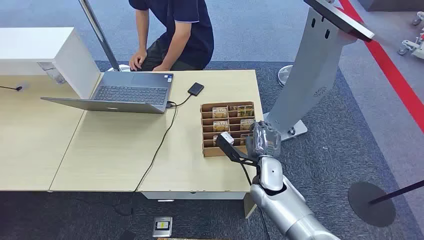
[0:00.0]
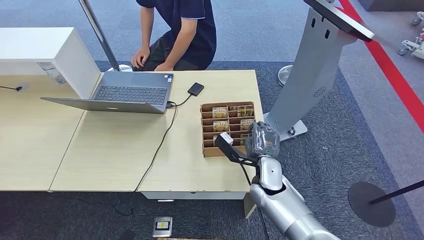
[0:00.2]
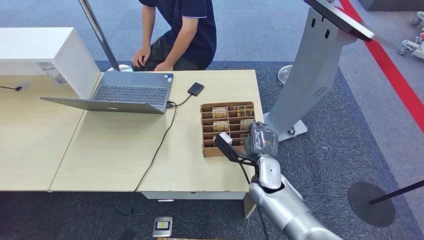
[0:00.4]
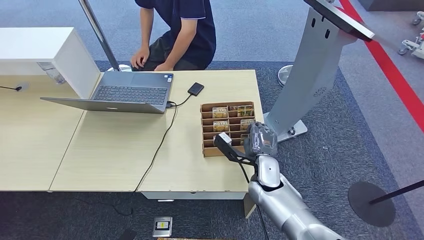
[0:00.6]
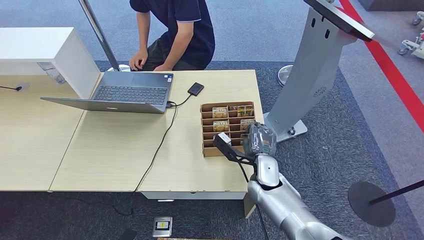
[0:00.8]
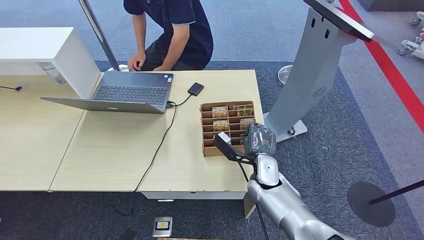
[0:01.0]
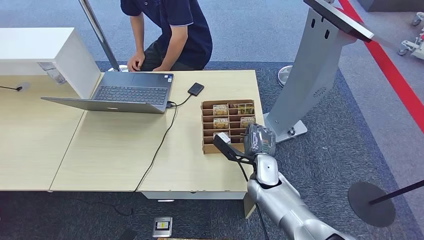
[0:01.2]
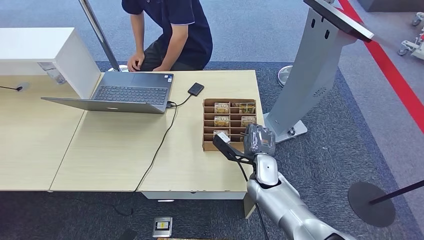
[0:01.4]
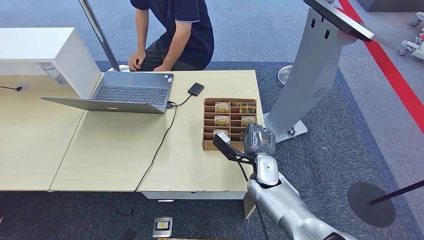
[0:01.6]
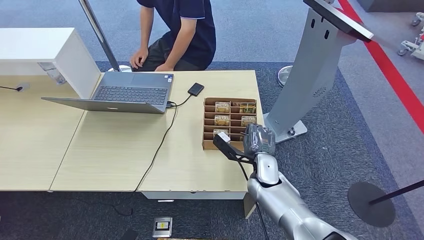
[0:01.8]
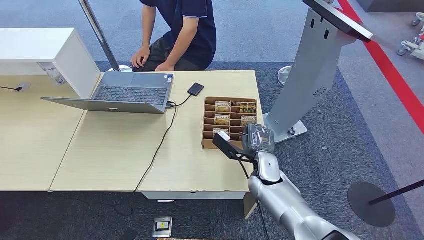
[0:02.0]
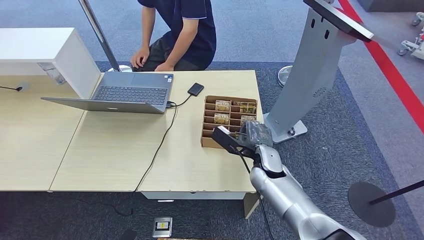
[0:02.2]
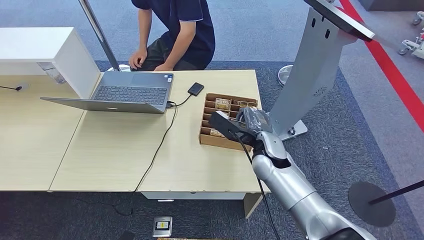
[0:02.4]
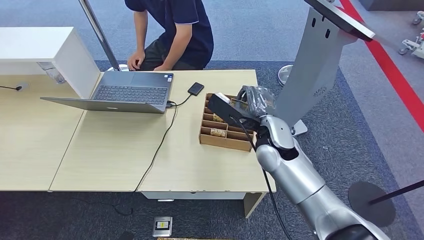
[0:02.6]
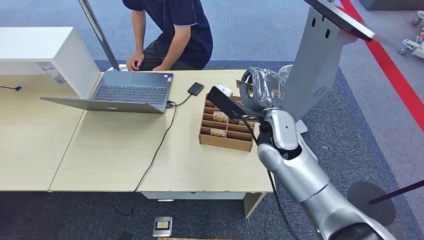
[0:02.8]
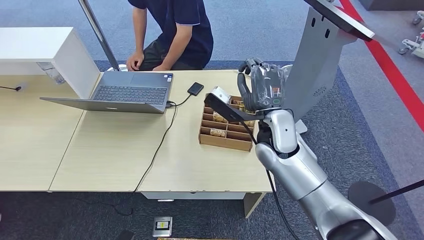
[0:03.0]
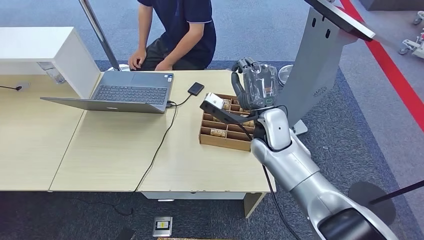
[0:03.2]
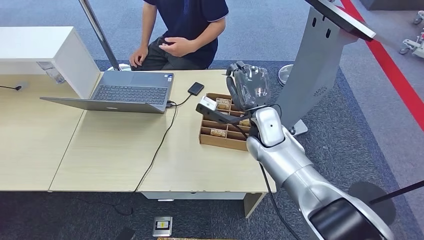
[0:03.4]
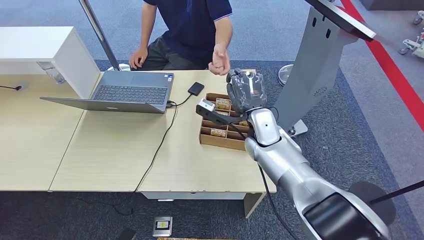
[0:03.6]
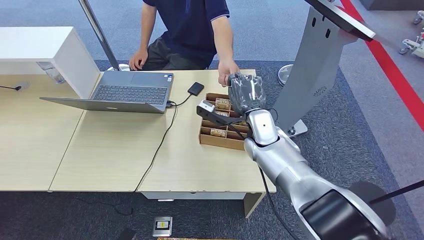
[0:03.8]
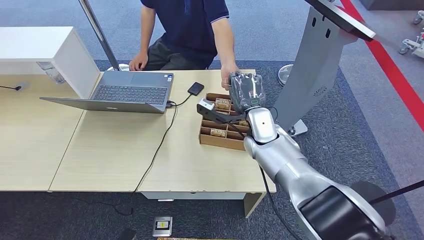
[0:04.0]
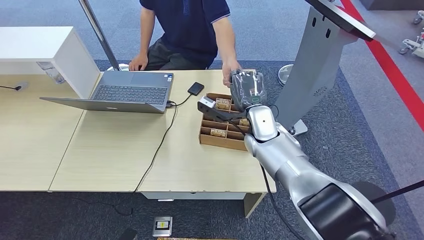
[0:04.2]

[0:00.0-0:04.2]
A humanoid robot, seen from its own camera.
Task of the whole recording: Pick up the card and hand it over to the target person.
Step, 0:00.0 to 0:02.4: Pick up the key card from the card box.
Step, 0:02.6 to 0:04.2: Hand the key card to the target.
0:01.4 to 0:02.8: The right hand goes about 15 cm upward.
0:02.8 to 0:04.2: The right hand shifts some 5 cm forward.

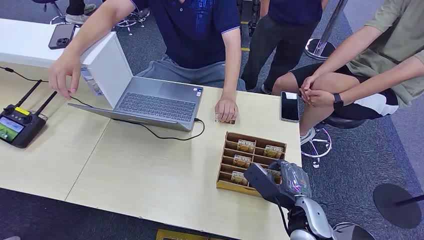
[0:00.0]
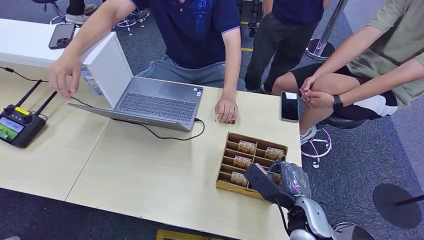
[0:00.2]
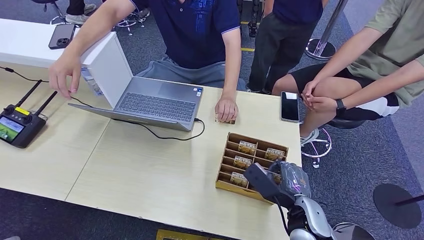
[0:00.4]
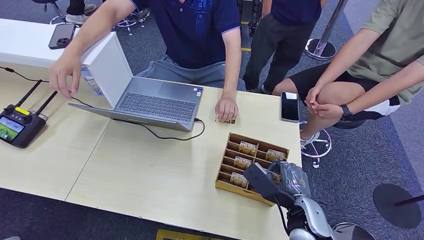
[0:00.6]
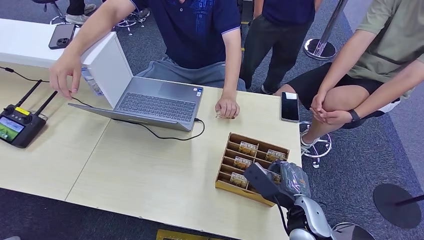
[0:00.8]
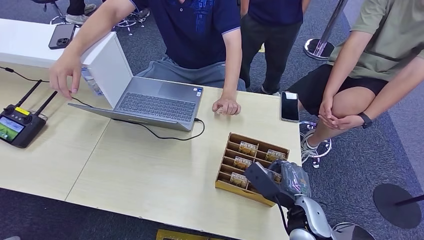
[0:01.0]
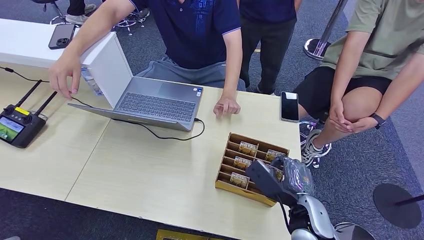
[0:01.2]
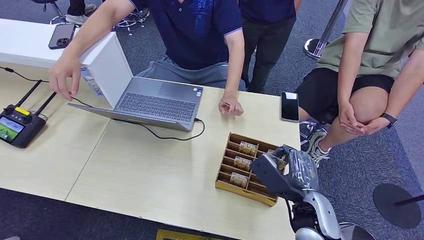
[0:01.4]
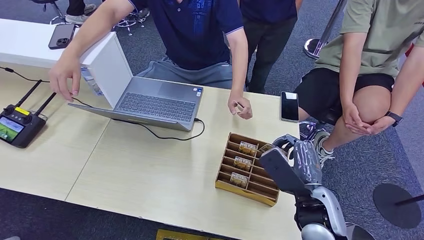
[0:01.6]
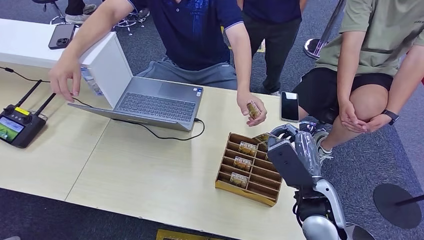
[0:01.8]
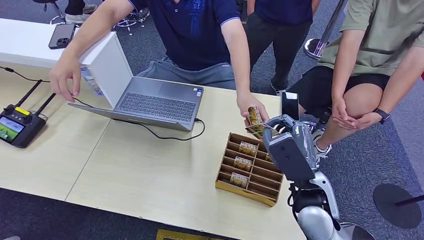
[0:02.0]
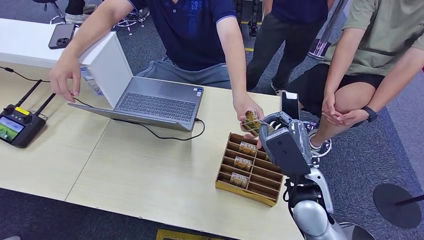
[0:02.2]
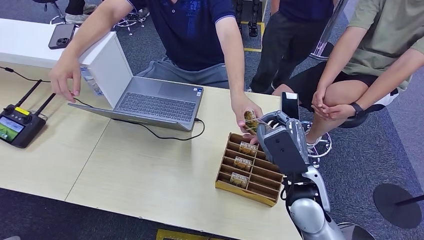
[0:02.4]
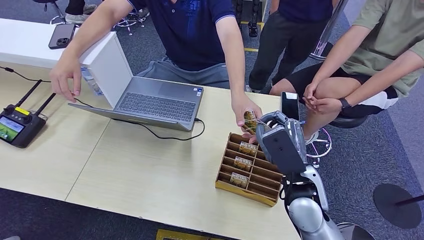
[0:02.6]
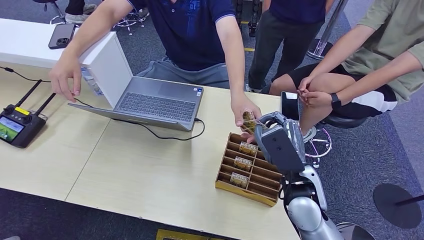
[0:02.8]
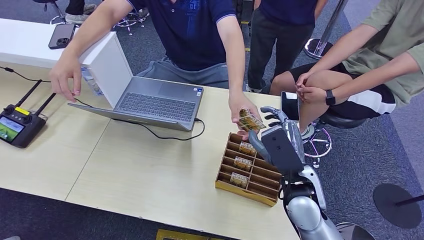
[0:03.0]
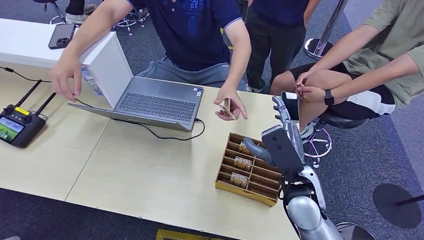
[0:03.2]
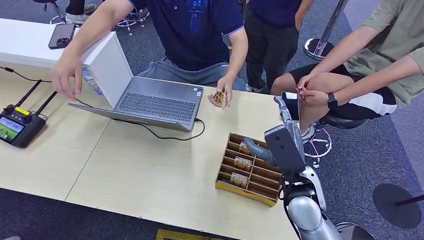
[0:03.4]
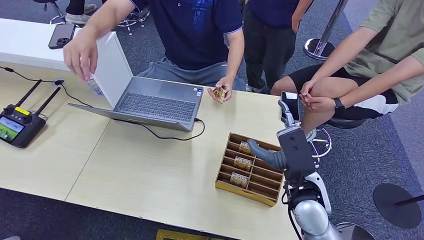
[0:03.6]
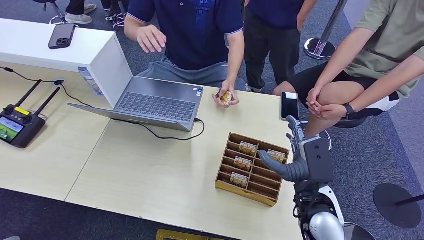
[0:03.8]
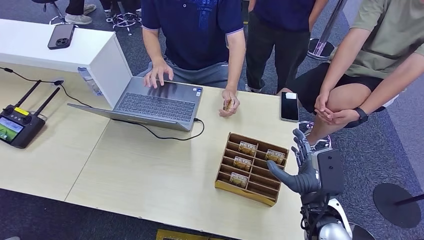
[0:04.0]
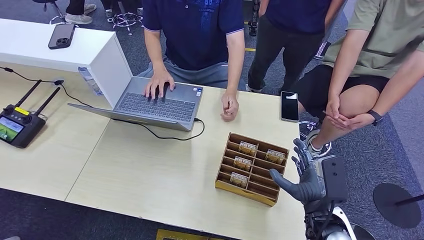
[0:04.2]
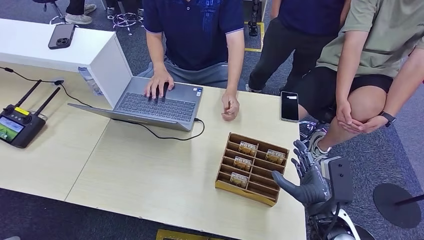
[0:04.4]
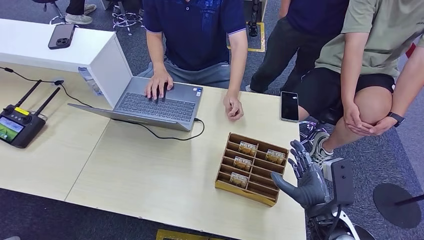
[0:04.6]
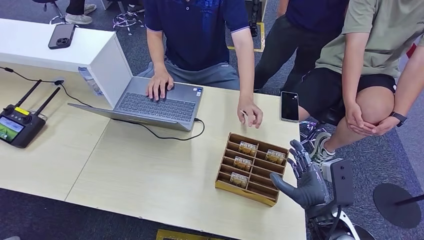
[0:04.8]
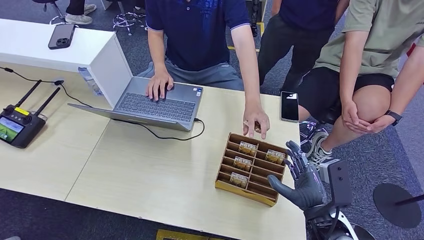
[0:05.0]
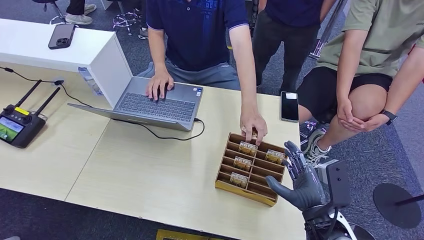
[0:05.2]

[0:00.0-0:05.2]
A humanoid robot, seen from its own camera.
Task of the whole recording: Pick up the card and hand it over to the target person.
Step, 0:00.0 to 0:01.6: Pick up the key card from the card box.
Step, 0:01.8 to 0:05.2: Hand the key card to the target.
0:01.8 to 0:03.4: The hands stay close to where they were, moving slightly.
